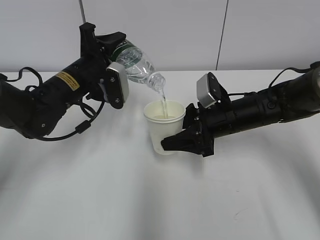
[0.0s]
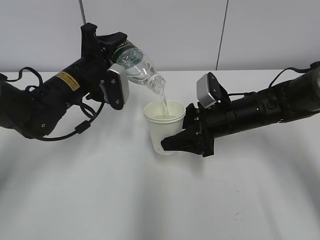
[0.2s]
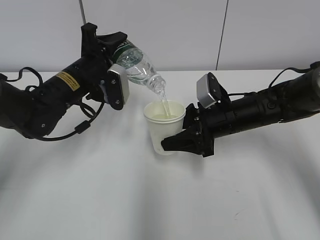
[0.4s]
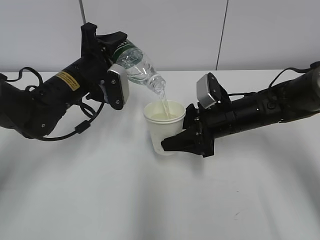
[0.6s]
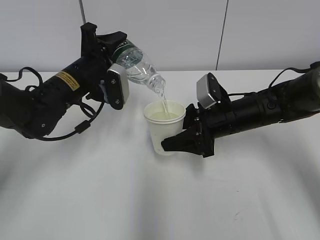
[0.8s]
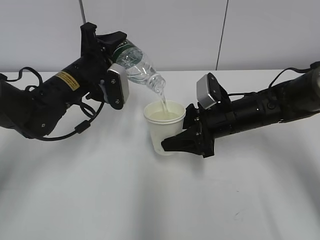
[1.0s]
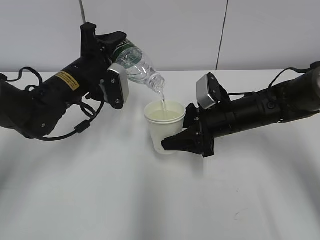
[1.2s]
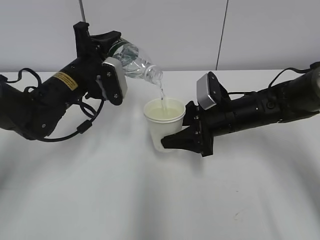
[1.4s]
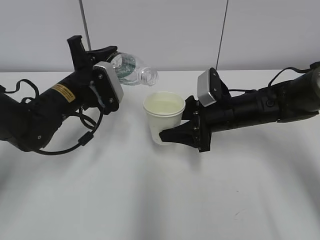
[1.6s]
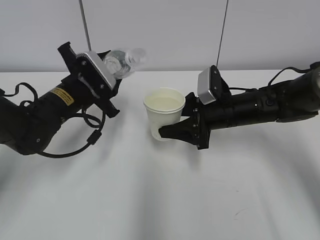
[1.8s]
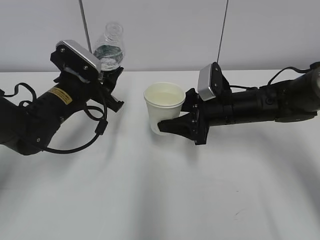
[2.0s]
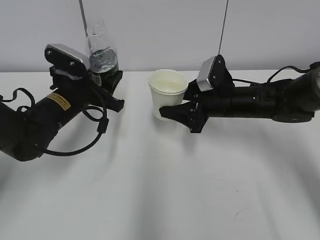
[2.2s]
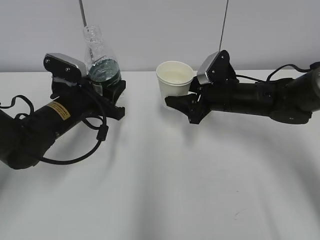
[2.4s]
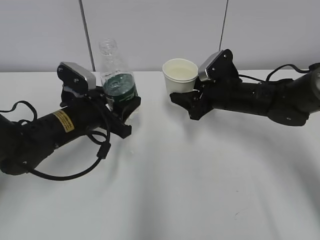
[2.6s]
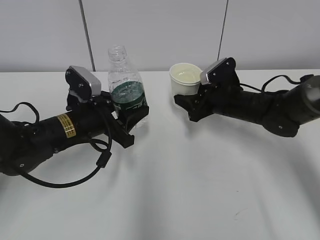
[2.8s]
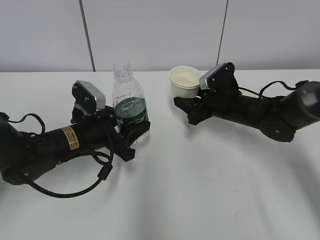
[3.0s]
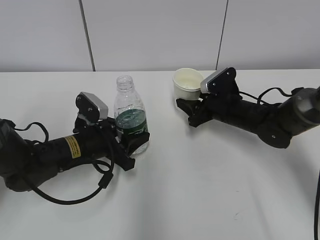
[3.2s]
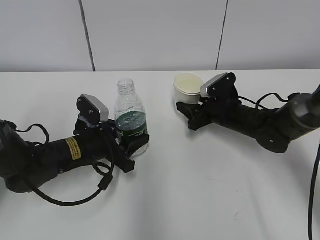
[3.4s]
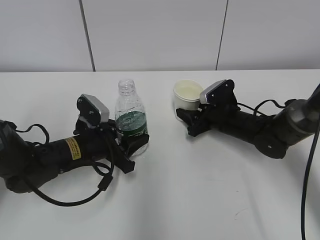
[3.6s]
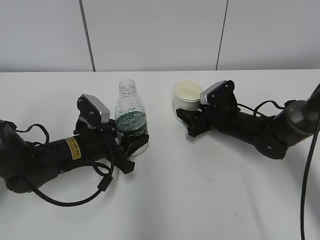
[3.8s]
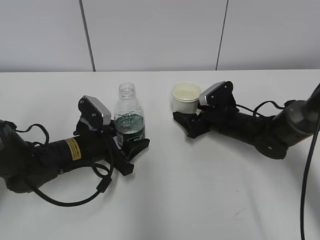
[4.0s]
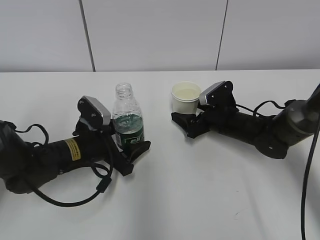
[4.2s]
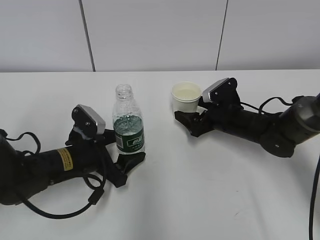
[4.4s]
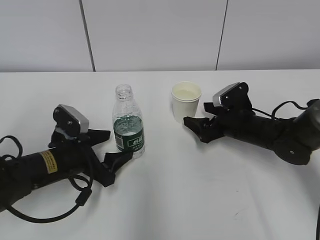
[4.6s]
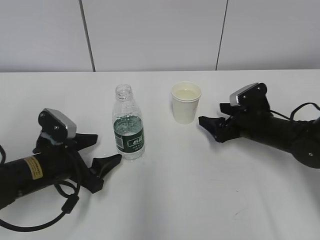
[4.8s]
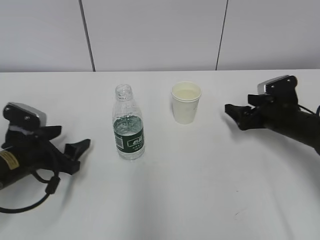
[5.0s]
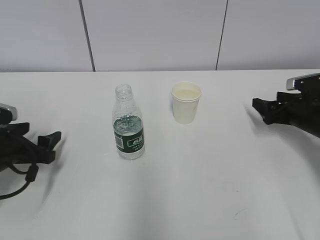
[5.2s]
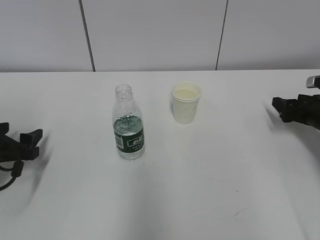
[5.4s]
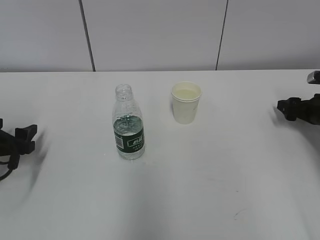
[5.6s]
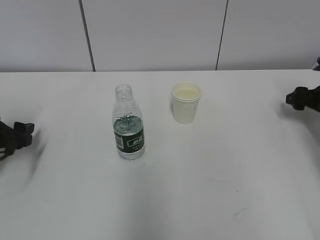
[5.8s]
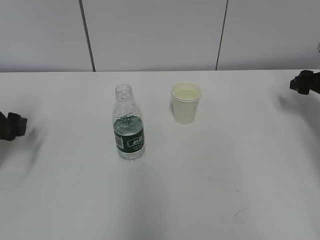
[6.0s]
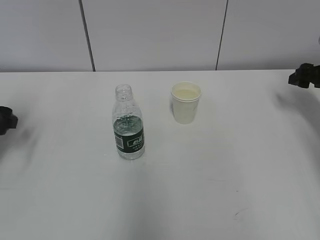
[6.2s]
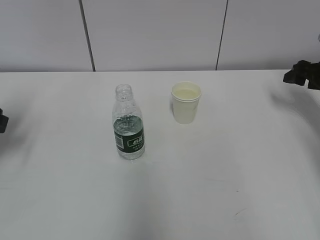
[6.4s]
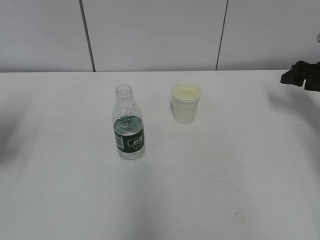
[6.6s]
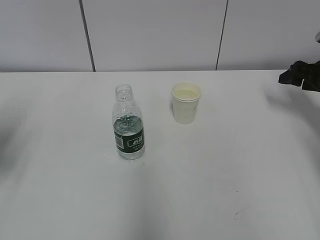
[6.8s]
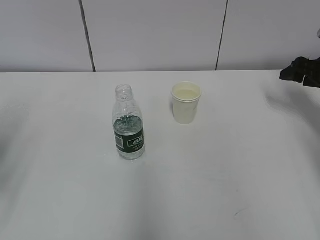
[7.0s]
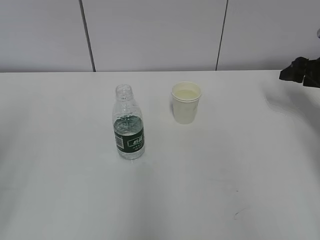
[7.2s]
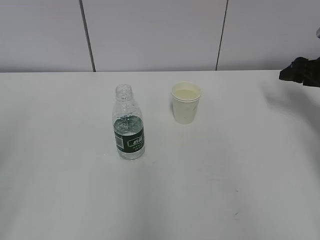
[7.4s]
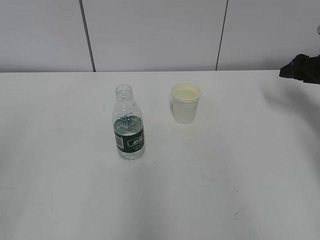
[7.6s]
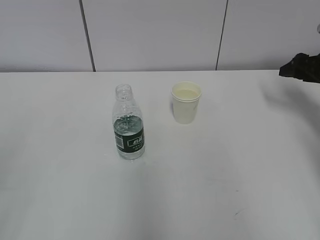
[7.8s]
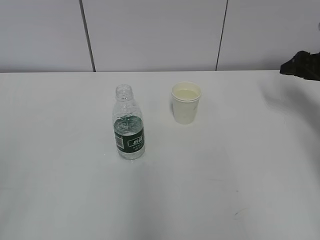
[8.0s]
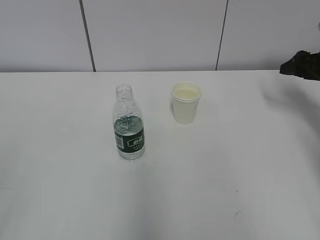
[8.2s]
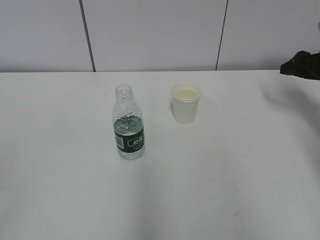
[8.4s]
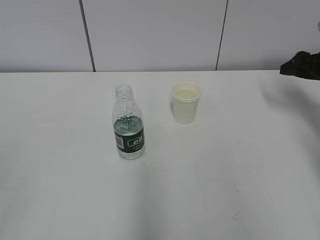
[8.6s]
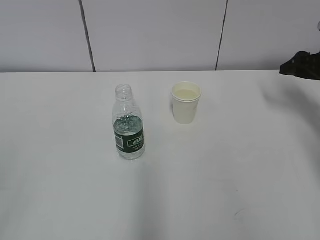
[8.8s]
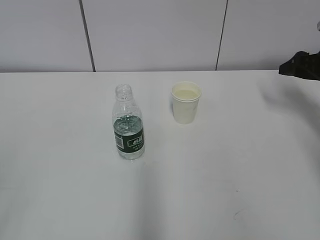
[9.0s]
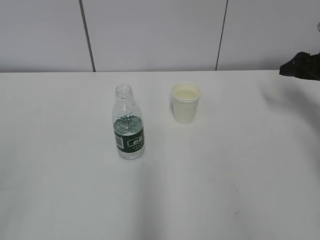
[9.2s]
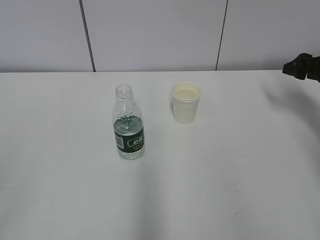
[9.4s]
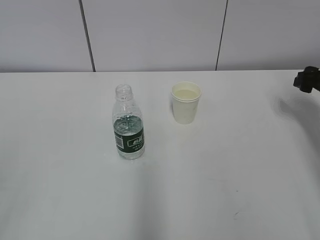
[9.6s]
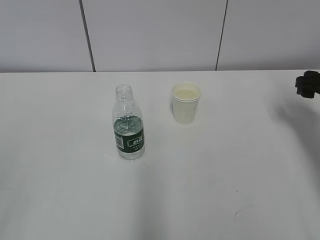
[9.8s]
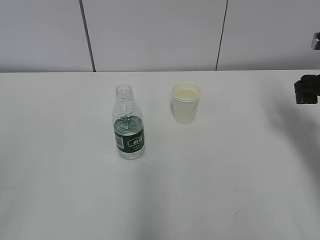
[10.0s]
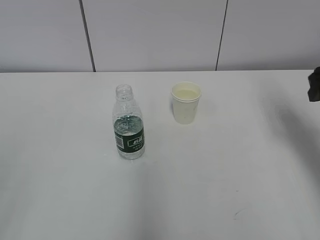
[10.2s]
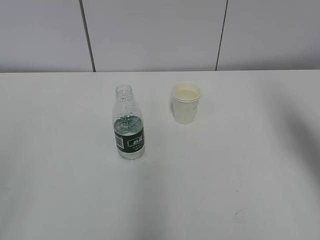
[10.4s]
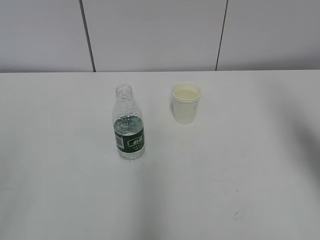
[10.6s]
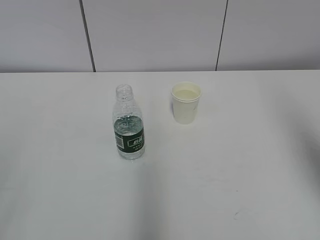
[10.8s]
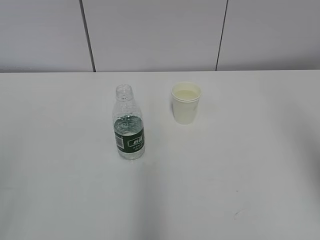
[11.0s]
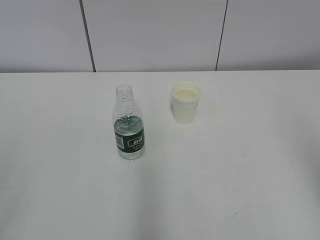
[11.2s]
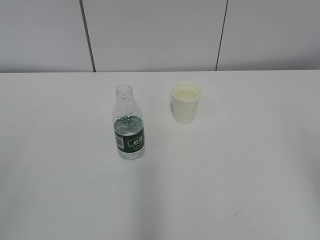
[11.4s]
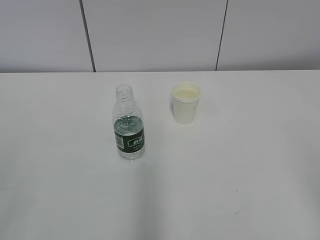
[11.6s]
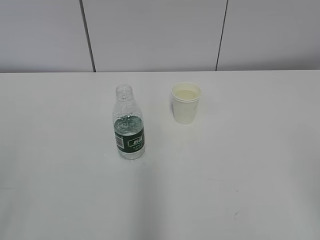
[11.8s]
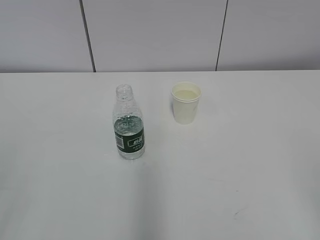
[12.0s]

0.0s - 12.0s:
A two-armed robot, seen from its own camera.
0.0s - 1.6s: The grippers move only a little.
1.6s - 3.0s: The left gripper goes approximately 10 cm downward and backward. Meanwhile the right gripper ends up approximately 5 cm from where it was.
3.0s - 4.4s: The right gripper opens; the left gripper opens.
4.4s - 6.0s: The left gripper heads to the left, covering some 20 cm. Meanwhile the right gripper travels to the right by approximately 25 cm.
6.0s - 7.6s: The left gripper travels backward and upward by some 30 cm.
9.0s - 10.4s: The right gripper shifts some 20 cm backward, upward and to the left.
10.4s - 12.0s: The right gripper moves backward, approximately 25 cm.

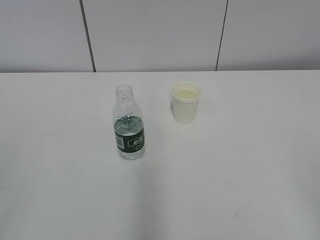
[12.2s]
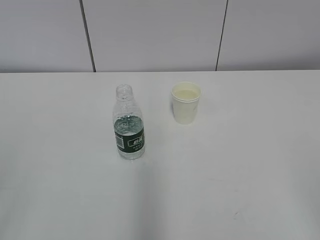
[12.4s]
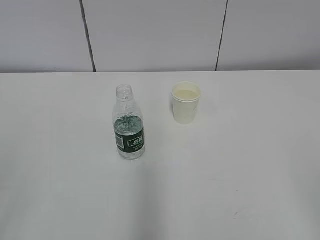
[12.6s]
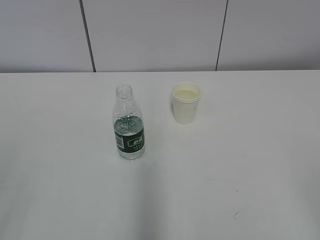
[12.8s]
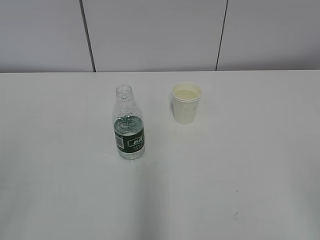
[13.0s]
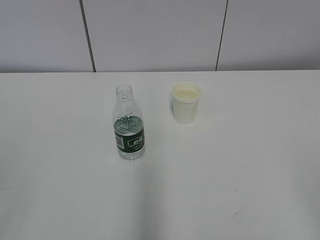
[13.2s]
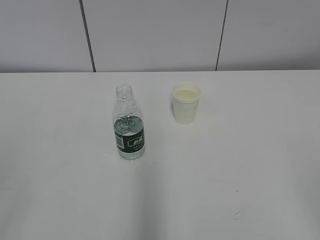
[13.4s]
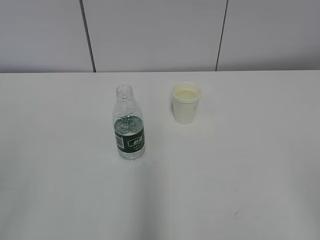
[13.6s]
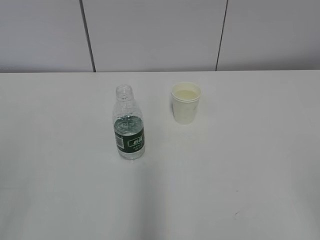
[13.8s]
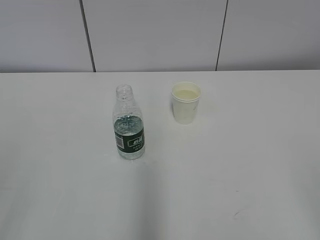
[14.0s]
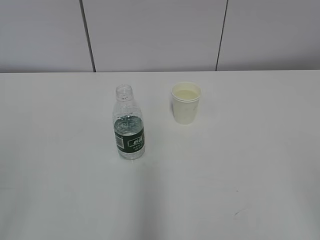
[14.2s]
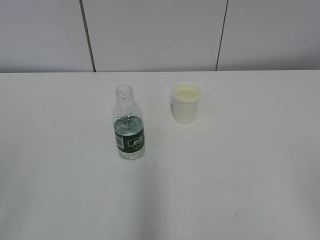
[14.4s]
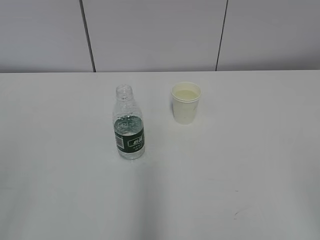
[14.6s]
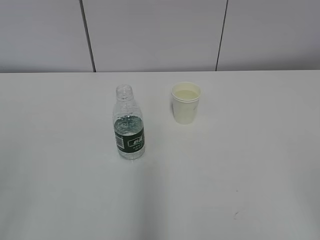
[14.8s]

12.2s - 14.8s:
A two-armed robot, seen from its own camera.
12.2s - 14.8s: Both grippers stay put.

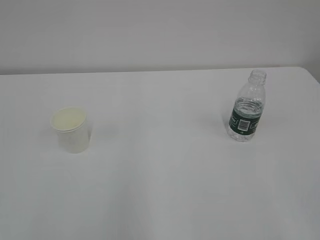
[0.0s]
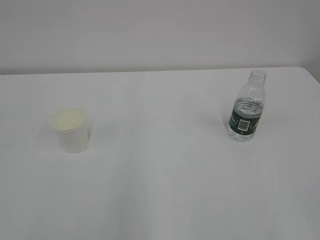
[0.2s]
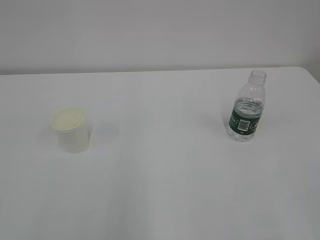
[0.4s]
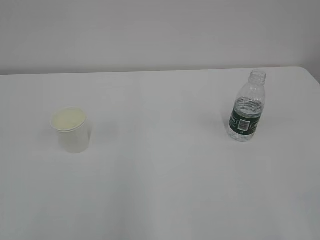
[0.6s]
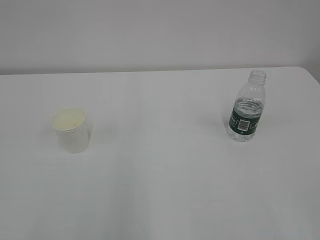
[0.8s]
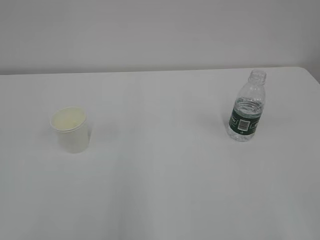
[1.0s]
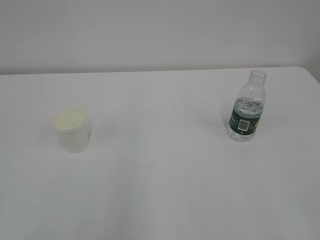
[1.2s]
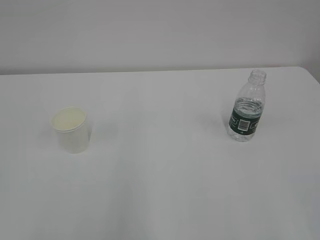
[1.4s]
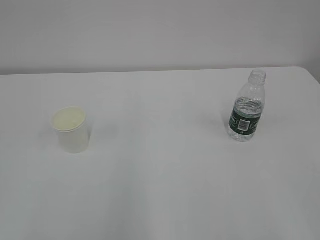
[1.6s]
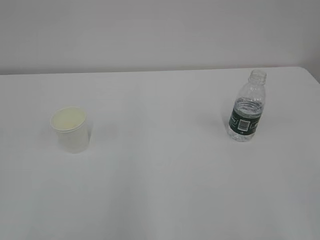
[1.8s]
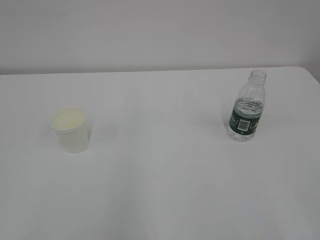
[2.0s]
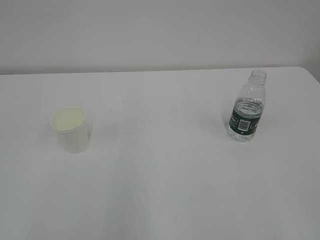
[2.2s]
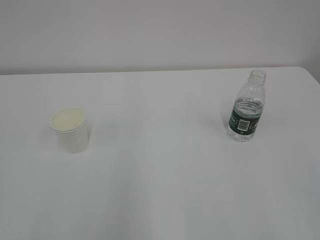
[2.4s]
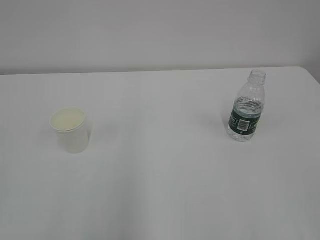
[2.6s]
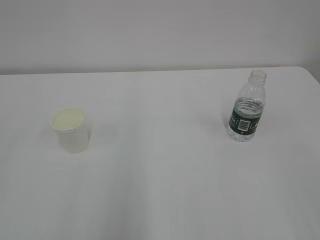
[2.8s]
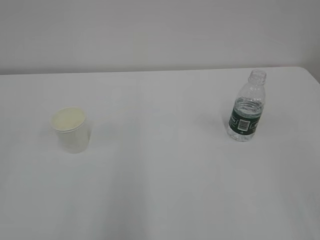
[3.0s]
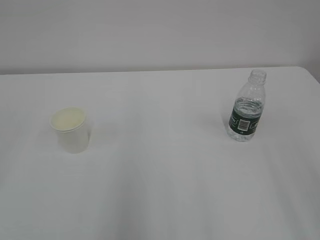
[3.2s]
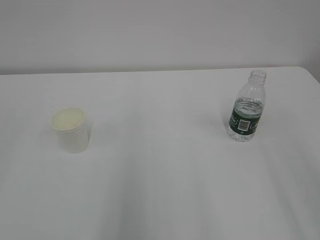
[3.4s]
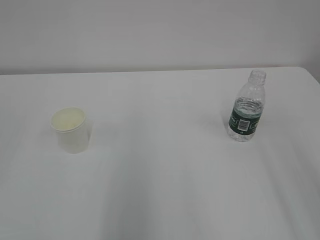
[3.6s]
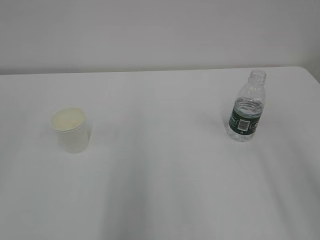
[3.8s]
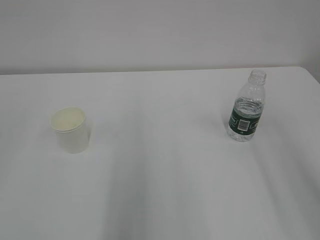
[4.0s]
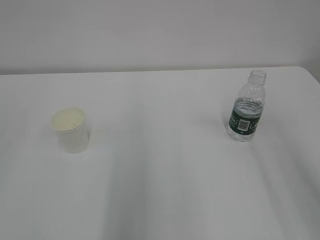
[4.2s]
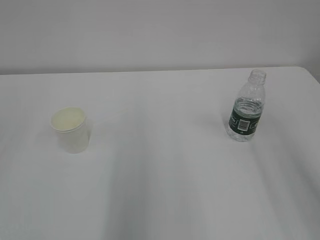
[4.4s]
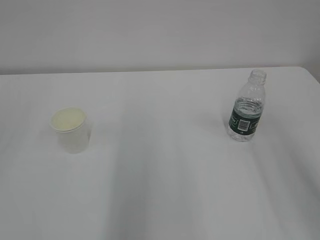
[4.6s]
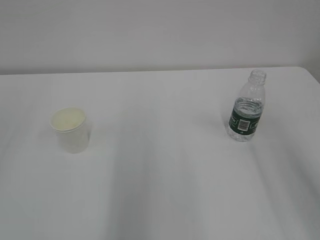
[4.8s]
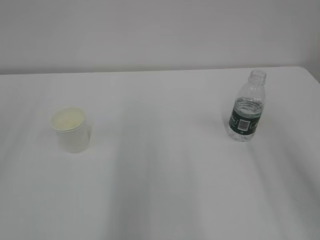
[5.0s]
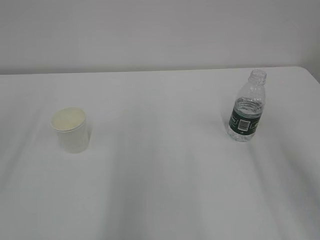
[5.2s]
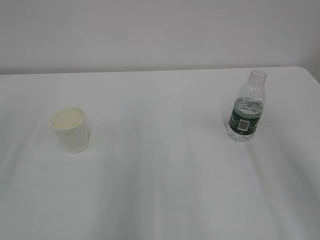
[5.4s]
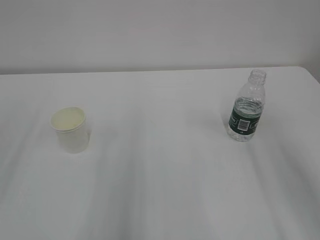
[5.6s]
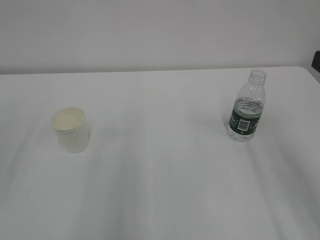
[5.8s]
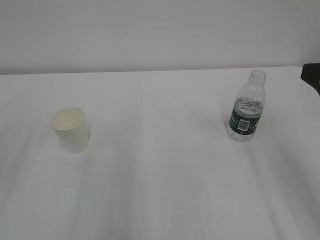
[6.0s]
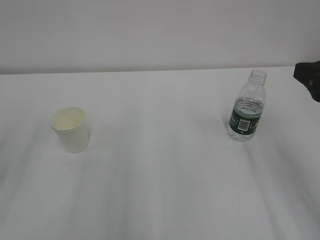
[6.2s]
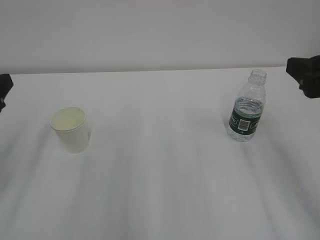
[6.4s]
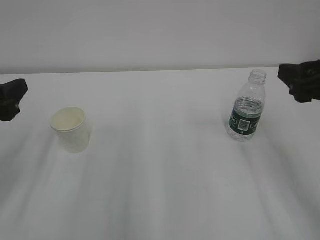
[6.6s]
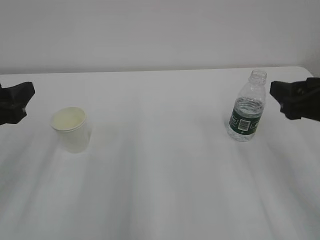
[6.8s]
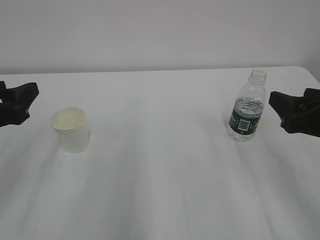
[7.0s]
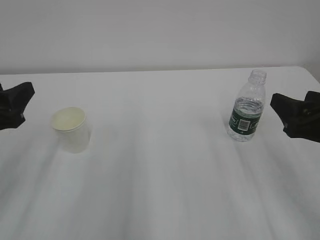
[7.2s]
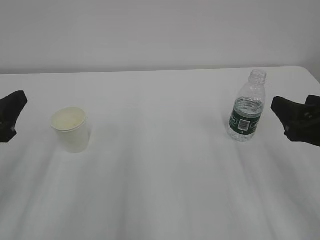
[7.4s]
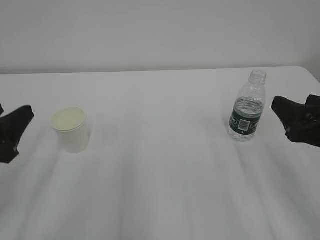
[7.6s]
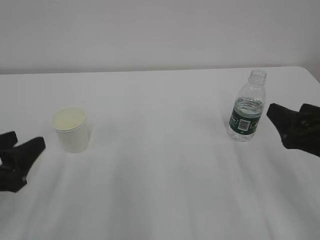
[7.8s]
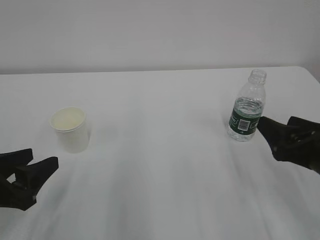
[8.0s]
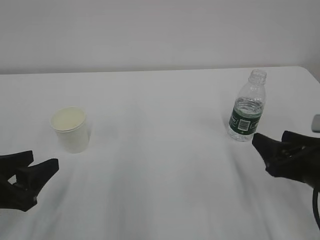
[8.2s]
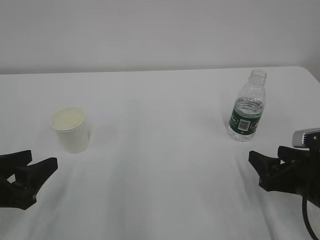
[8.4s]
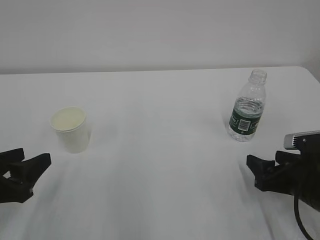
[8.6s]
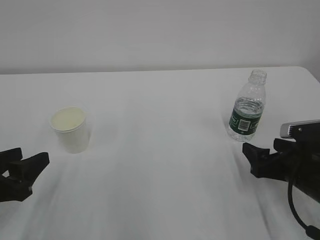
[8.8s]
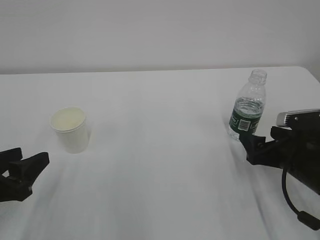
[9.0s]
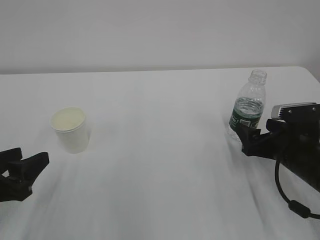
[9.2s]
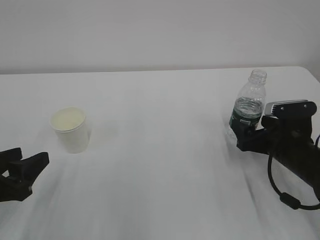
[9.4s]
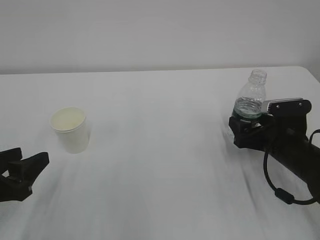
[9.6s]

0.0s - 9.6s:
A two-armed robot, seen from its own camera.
4.8s - 6.4s: The right gripper moves forward and downward, roughly 10 cm.
6.4s - 8.0s: The left gripper travels downward and backward by some 10 cm; the right gripper moves downward, approximately 10 cm.
8.0s - 9.6s: The right gripper shifts some 15 cm forward and downward.
